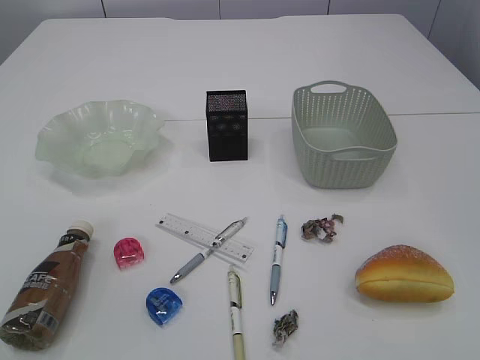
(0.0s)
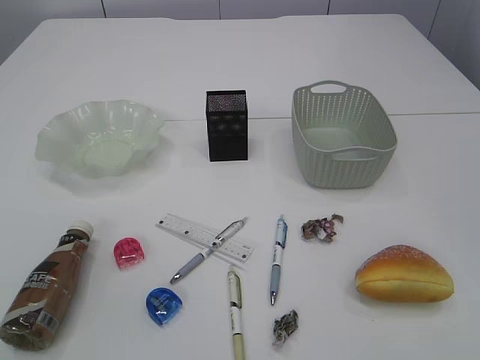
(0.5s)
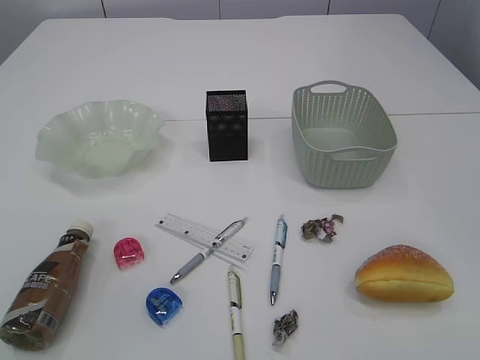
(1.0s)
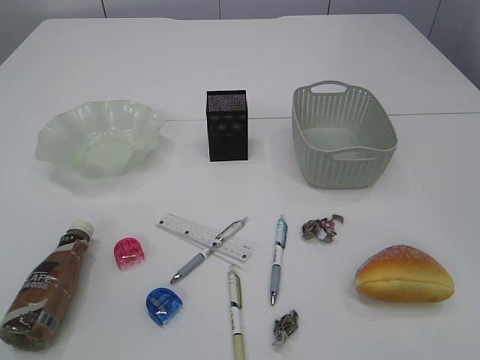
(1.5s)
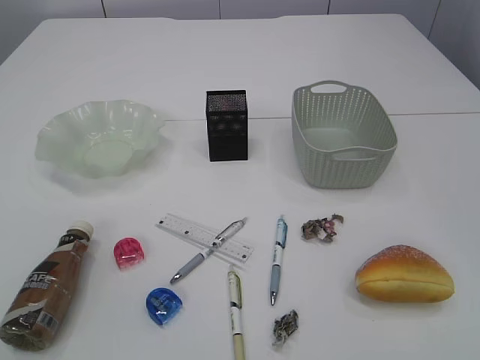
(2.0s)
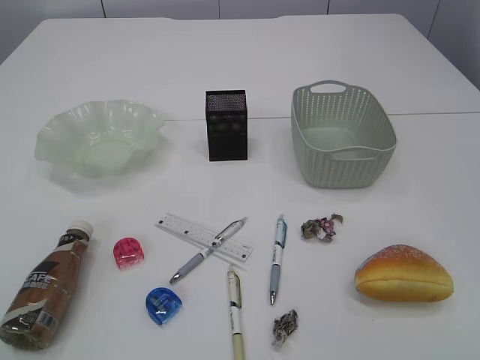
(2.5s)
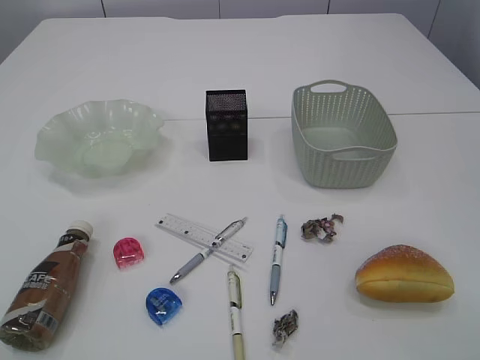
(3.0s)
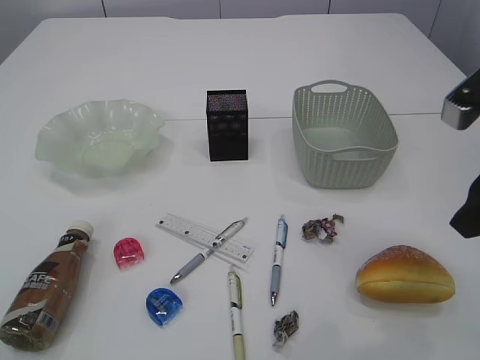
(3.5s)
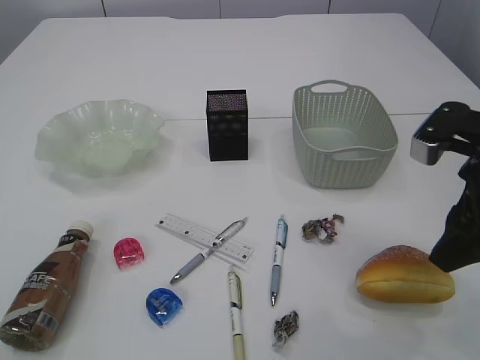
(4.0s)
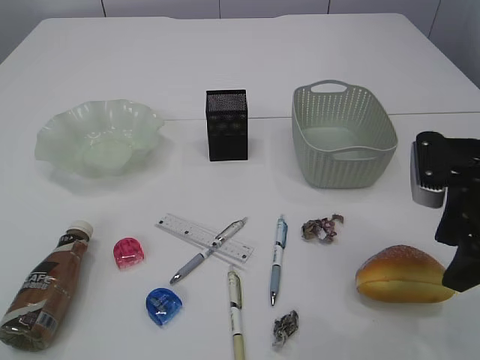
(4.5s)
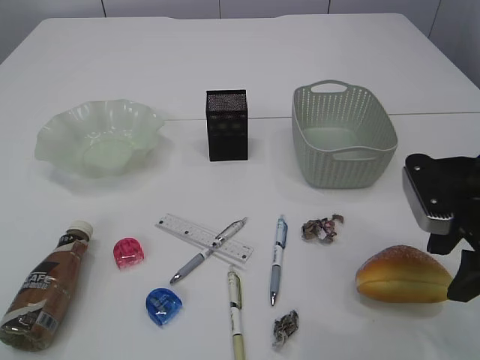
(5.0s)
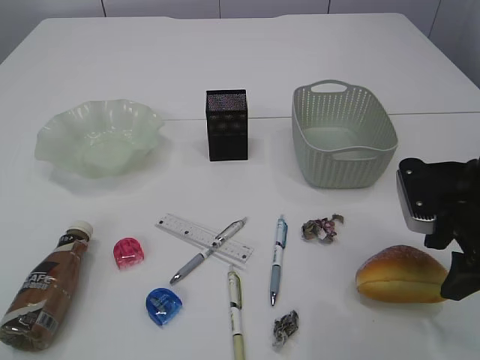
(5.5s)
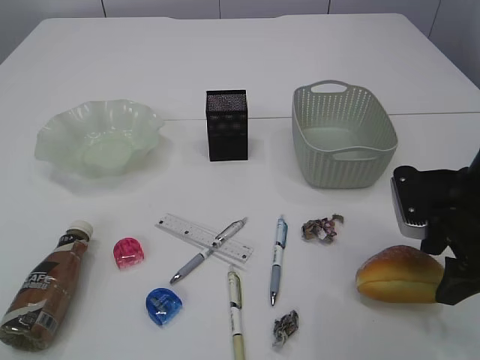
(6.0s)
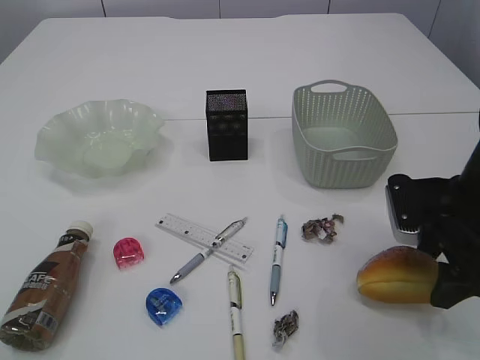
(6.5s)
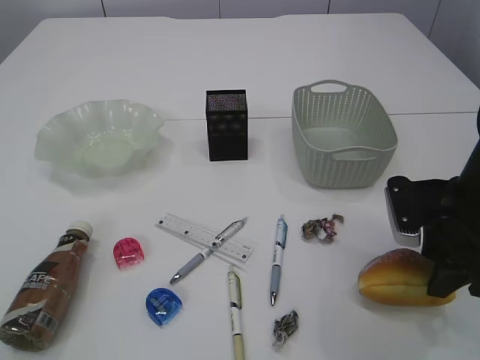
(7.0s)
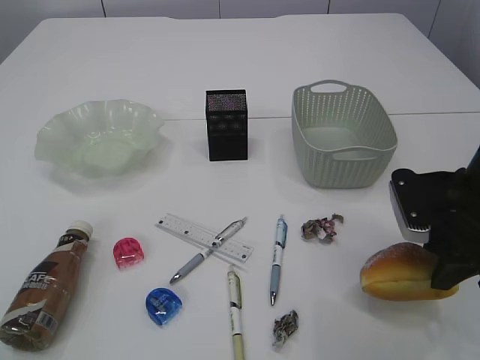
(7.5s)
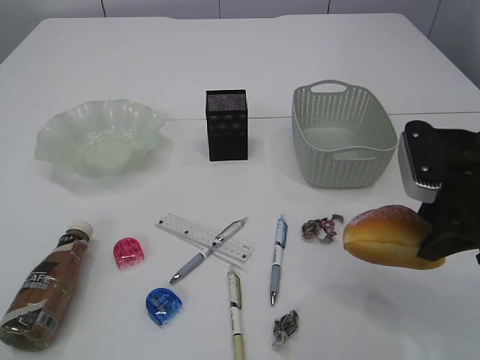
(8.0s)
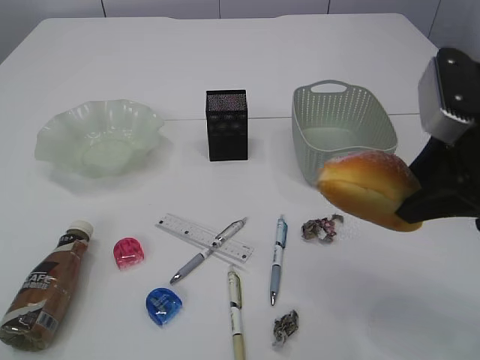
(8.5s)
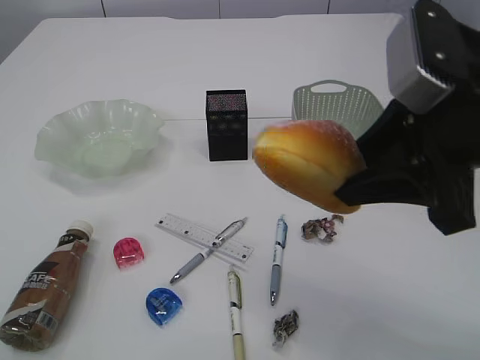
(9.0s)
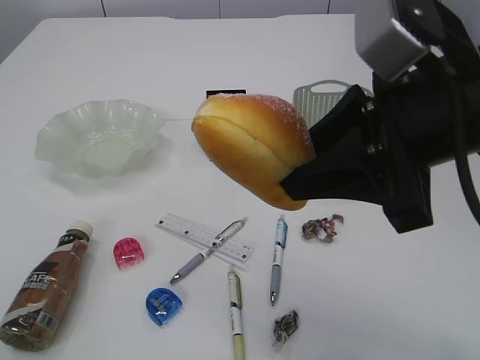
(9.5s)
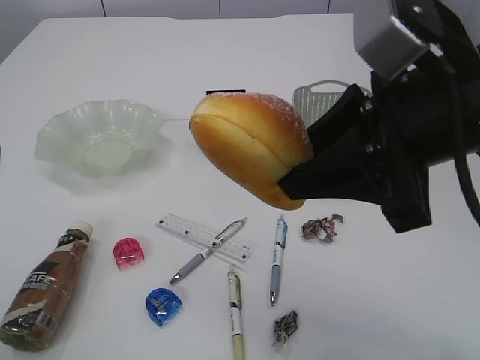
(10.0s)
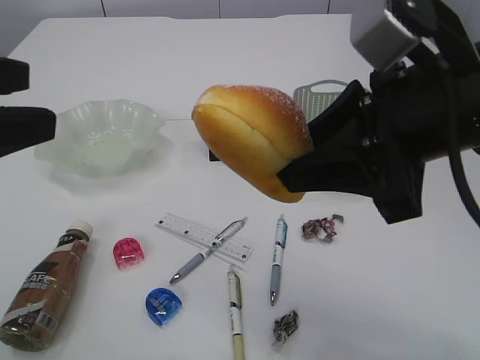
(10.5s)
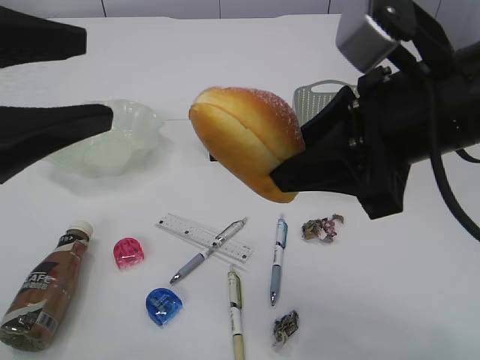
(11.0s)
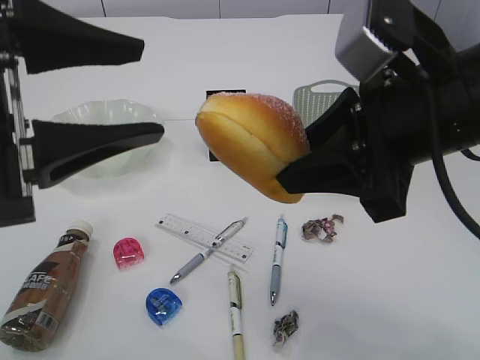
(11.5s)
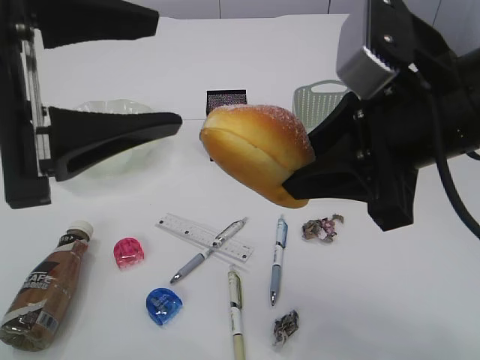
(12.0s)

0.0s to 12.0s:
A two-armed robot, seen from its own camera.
2.0s to 4.0s: The right gripper shifts about 25 cm forward.
4.0s to 6.0s: The right gripper shifts about 5 cm downward.
6.0s to 8.0s: The right gripper closes its fingers.
8.0s to 10.0s: The right gripper is displaced upward, to the left and backward by about 15 cm.
10.0s to 12.0s: The left gripper goes about 10 cm to the right.

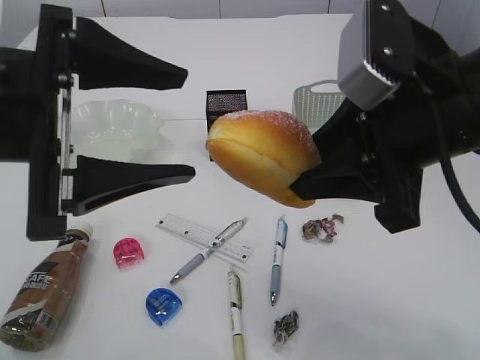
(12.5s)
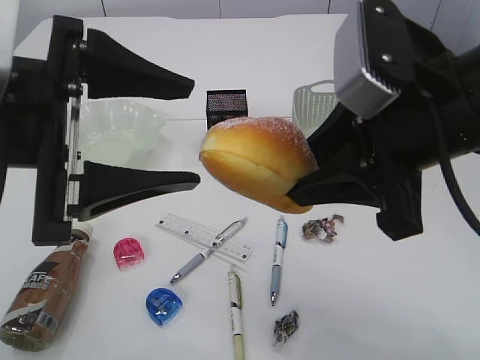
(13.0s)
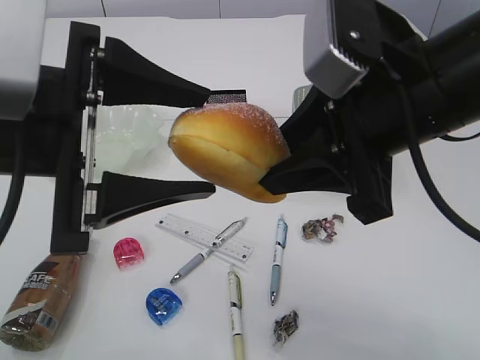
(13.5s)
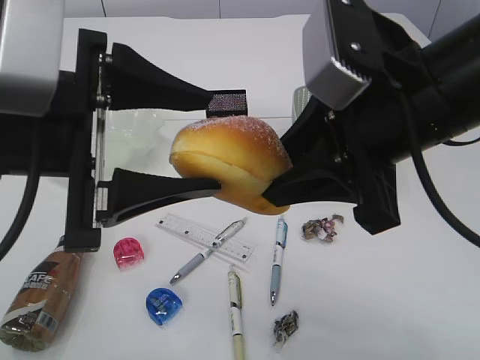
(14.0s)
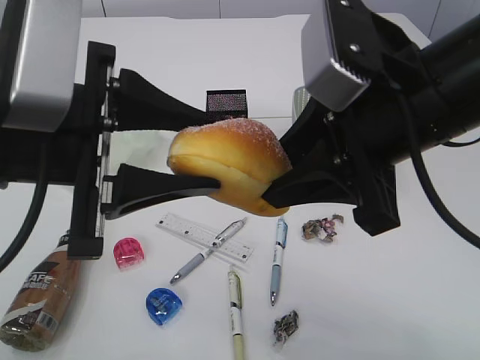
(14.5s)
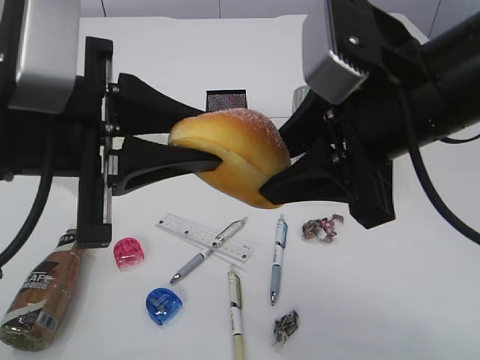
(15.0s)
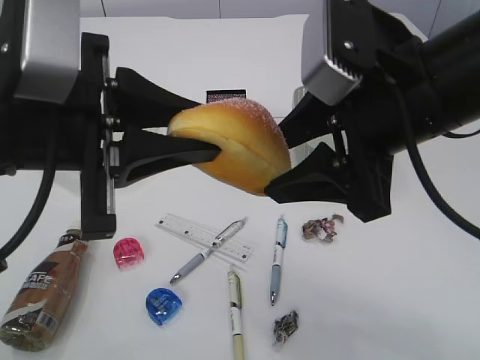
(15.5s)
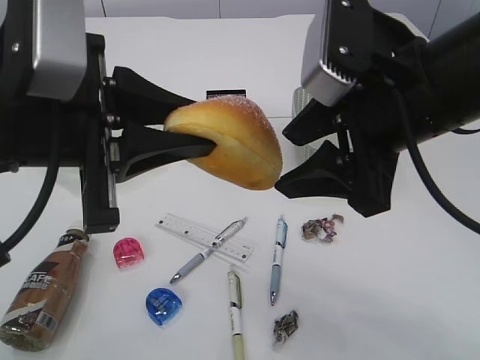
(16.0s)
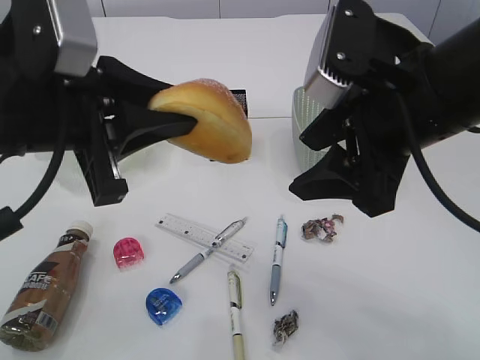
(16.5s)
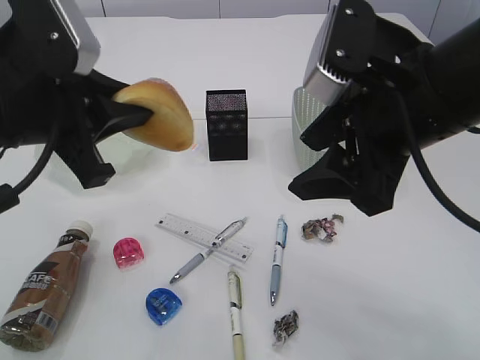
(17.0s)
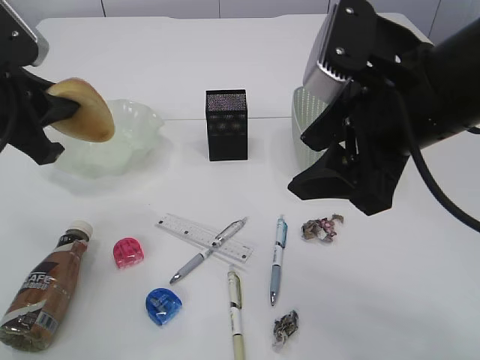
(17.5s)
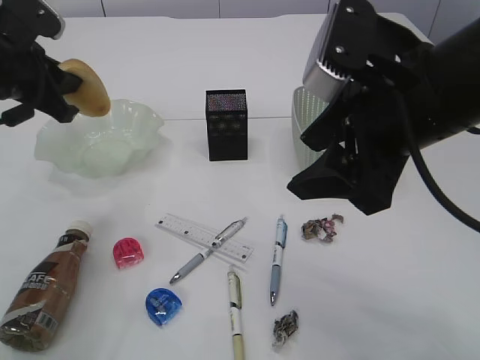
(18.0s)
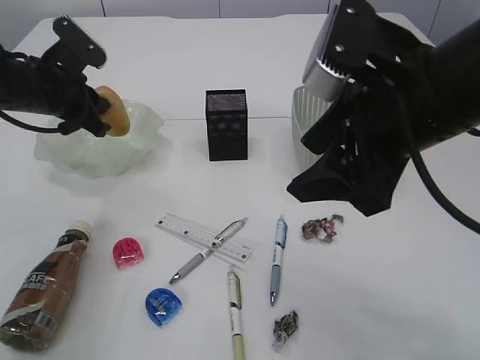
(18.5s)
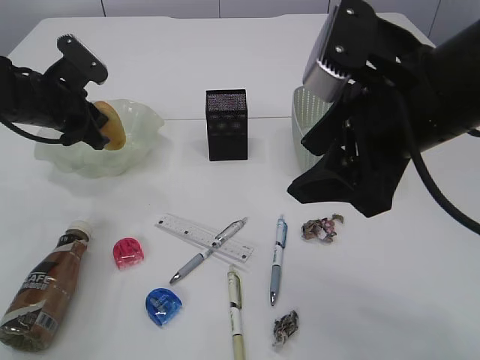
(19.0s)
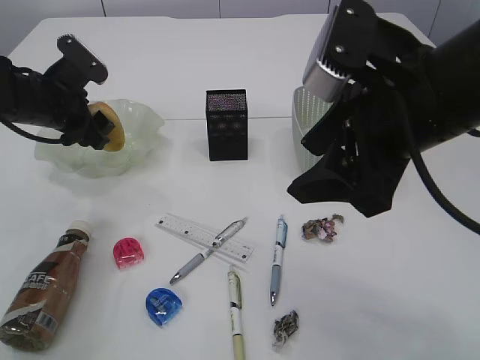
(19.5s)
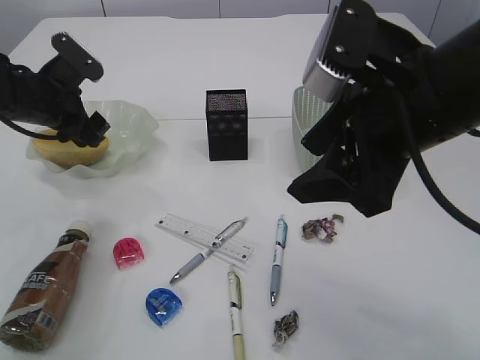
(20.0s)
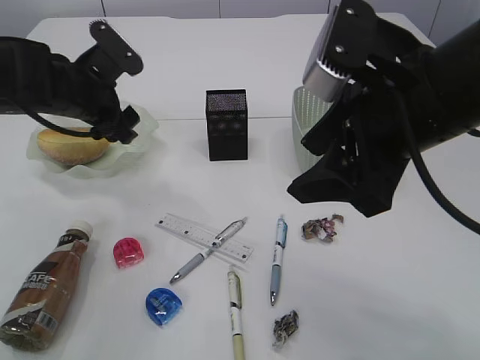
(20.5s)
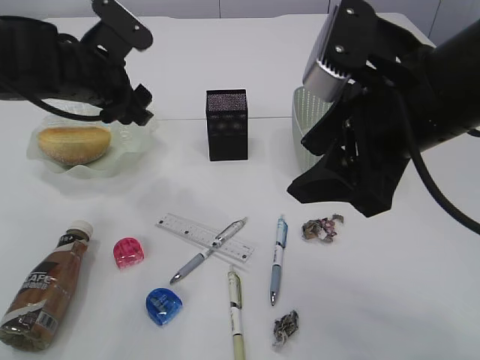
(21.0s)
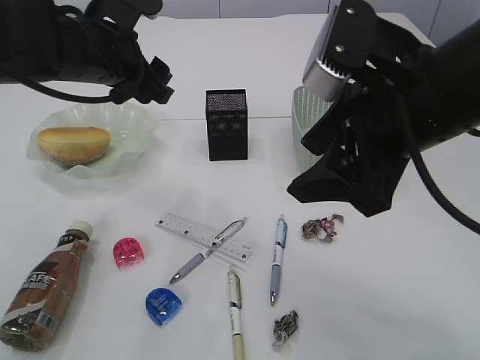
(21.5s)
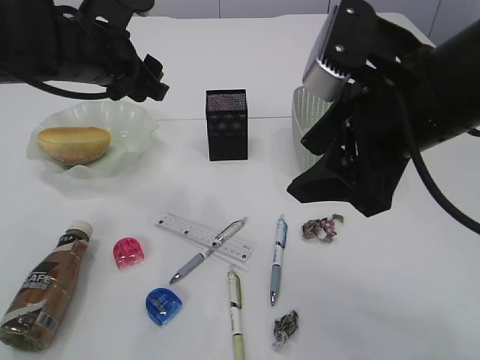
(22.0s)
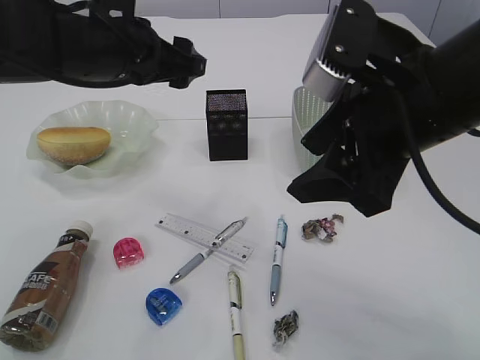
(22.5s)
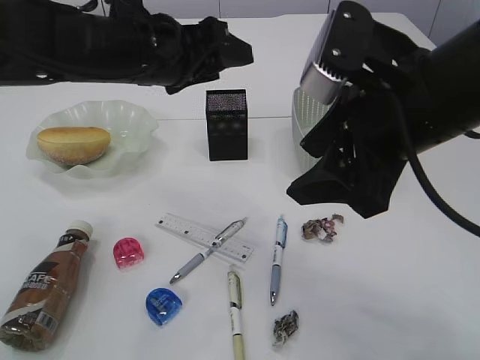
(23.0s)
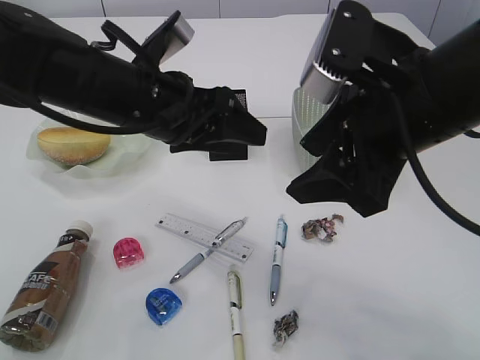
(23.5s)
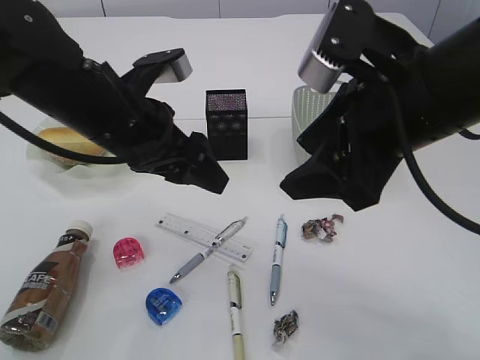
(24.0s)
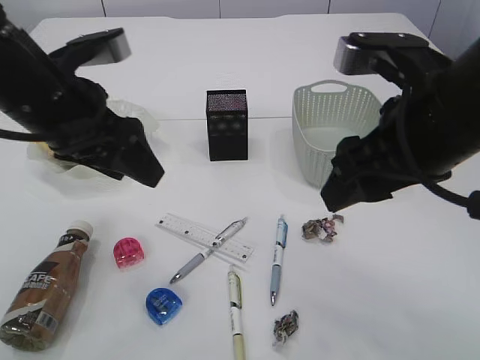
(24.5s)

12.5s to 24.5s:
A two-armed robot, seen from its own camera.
Step, 12.5s to 16.5s: Hand over the bread.
Step, 17.0s to 20.5s: place the bread in the plate.
12.5s to 14.5s: The left gripper closes its fingers.
14.5s to 16.5s: The left gripper closes its fingers; the right gripper opens.
16.5s to 18.5s: The left gripper goes some 25 cm forward, to the left and downward.
18.5s to 20.5s: The left gripper opens.
20.5s to 22.5s: The left gripper is displaced to the right and upward by about 10 cm.
22.5s to 24.5s: The left gripper travels backward by roughly 5 cm.

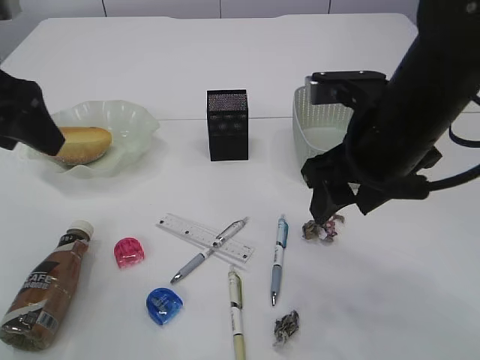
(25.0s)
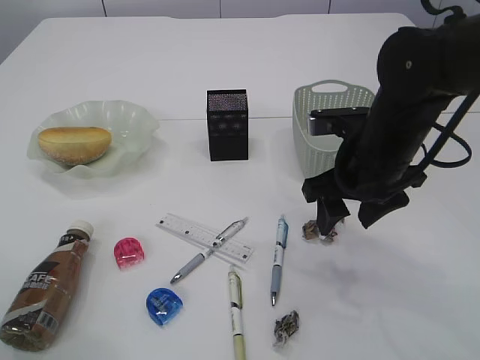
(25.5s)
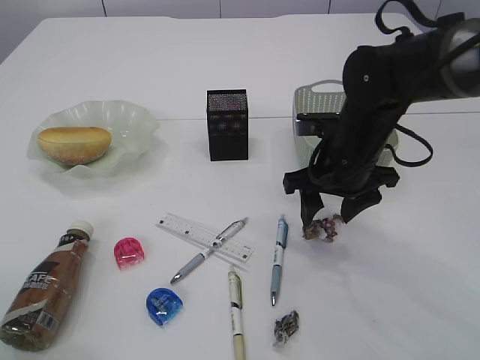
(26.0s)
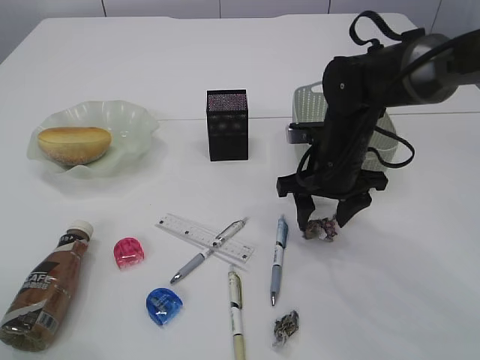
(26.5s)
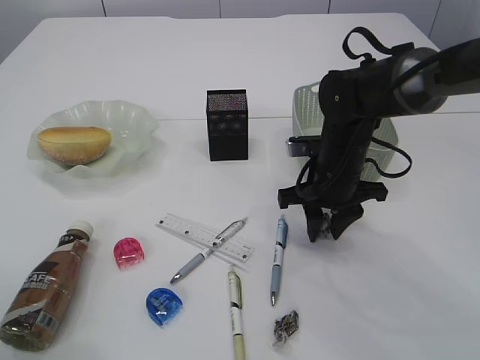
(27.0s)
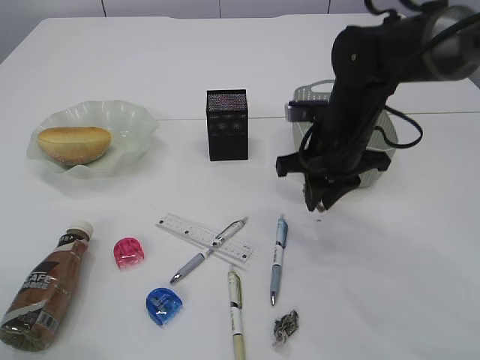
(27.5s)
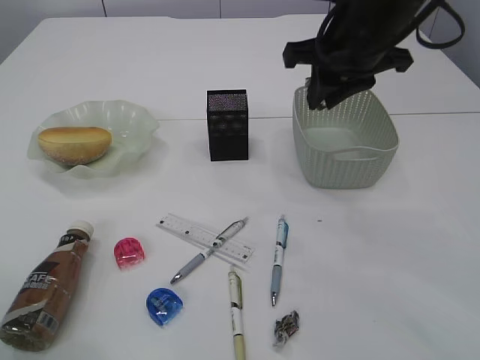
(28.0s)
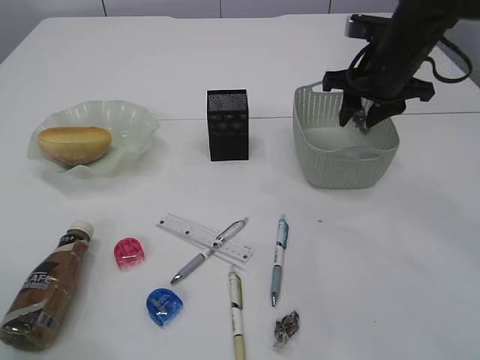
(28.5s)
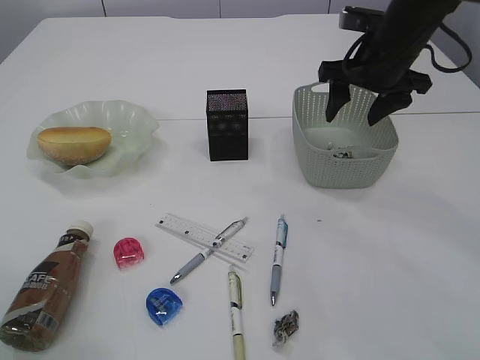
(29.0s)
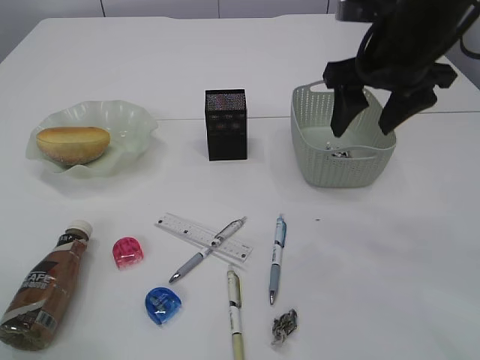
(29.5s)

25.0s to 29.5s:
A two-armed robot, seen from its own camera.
Step, 25.0s to 27.0s: Pick up the waste paper.
Step, 27.5s to 29.0s: Place the waste paper in the basket.
25.0s to 27.0s: The left gripper heads backward, covering roughly 10 cm. Meanwhile the right gripper shifts some 15 cm downward and forward, and closes its fingers.
27.0s to 29.5s: The right gripper swings up and down, about 20 cm each way, with 2 reversals, and opens.
